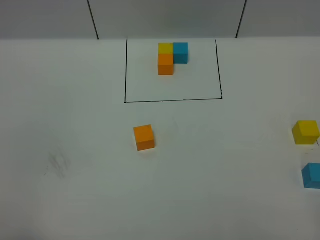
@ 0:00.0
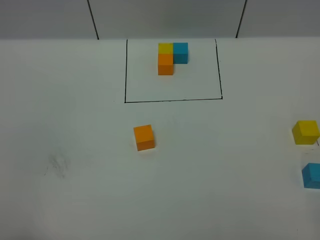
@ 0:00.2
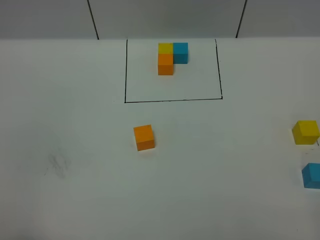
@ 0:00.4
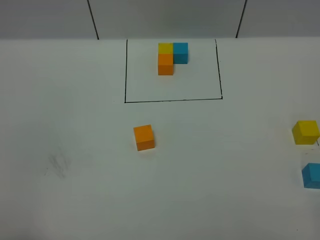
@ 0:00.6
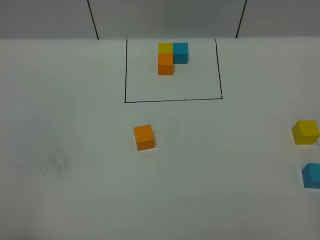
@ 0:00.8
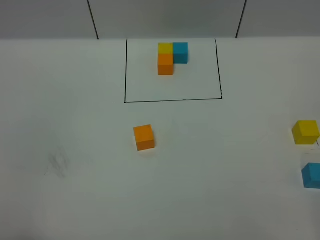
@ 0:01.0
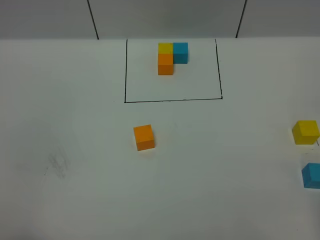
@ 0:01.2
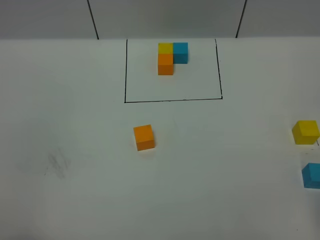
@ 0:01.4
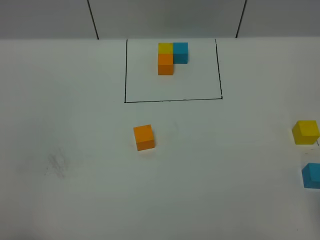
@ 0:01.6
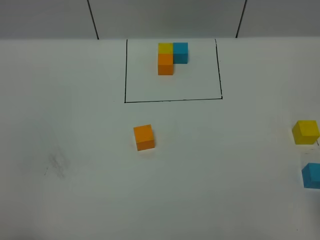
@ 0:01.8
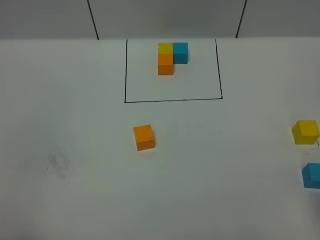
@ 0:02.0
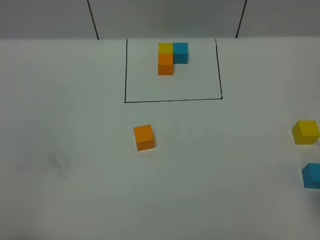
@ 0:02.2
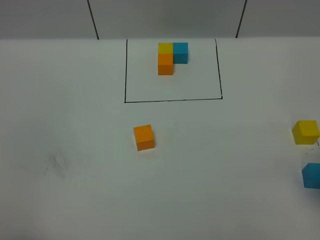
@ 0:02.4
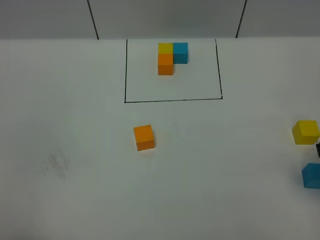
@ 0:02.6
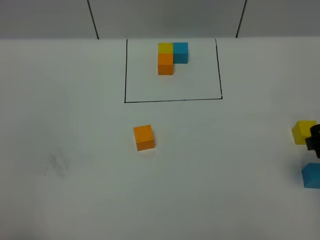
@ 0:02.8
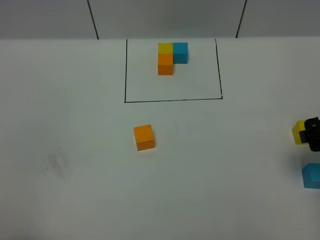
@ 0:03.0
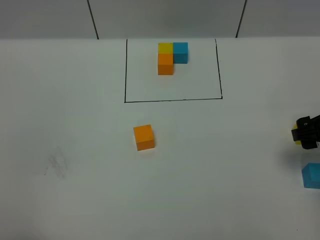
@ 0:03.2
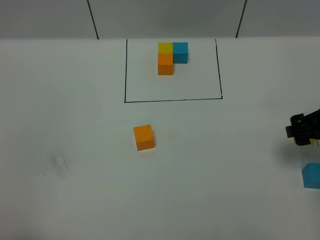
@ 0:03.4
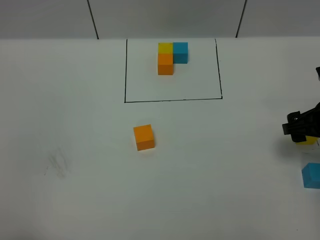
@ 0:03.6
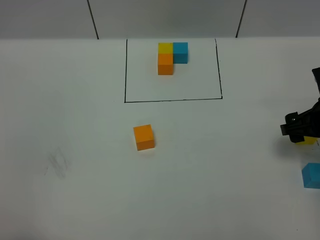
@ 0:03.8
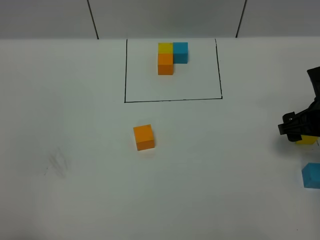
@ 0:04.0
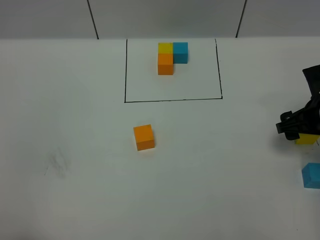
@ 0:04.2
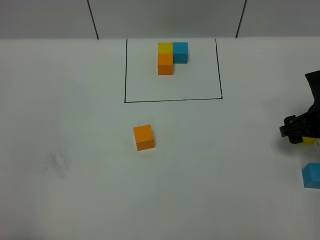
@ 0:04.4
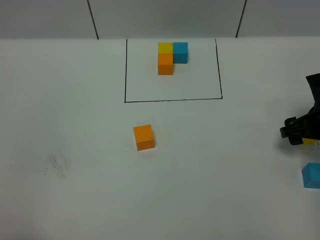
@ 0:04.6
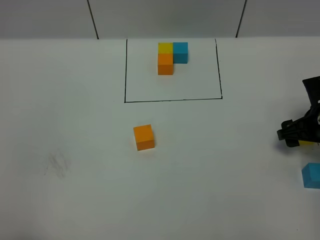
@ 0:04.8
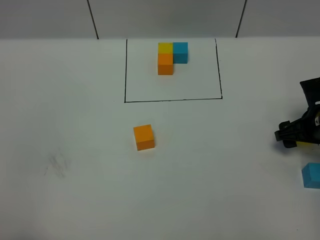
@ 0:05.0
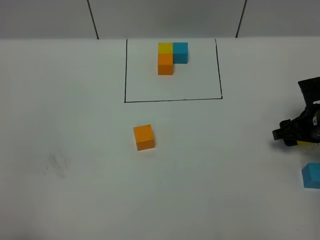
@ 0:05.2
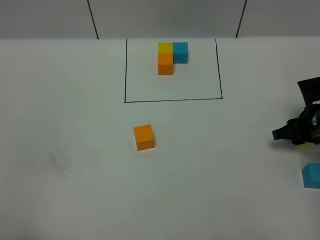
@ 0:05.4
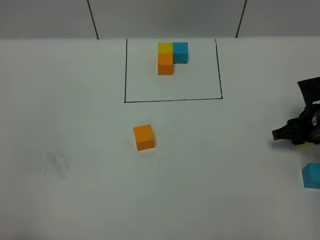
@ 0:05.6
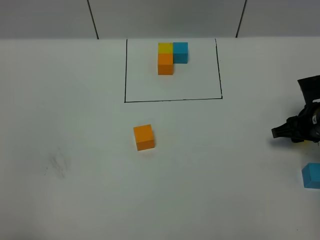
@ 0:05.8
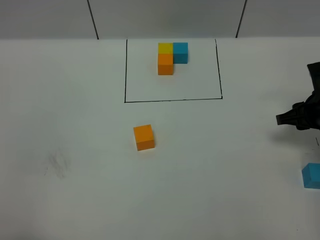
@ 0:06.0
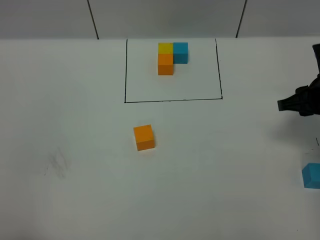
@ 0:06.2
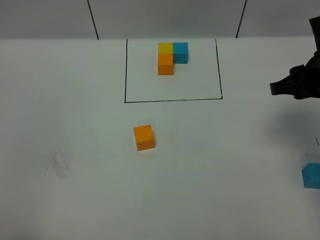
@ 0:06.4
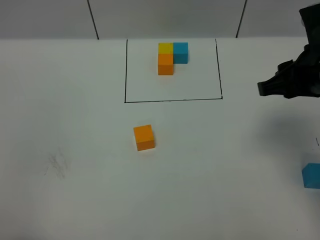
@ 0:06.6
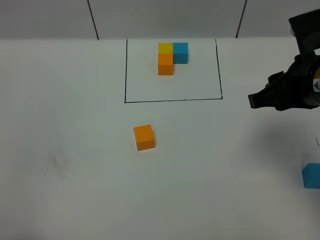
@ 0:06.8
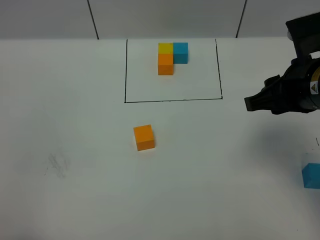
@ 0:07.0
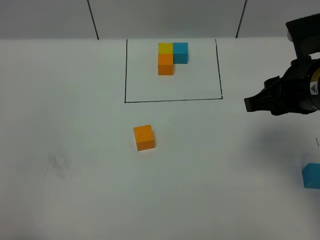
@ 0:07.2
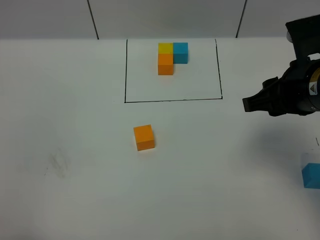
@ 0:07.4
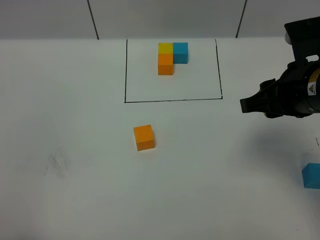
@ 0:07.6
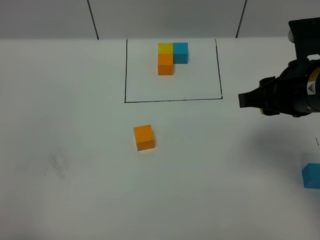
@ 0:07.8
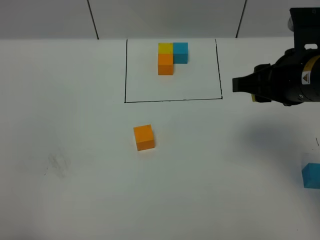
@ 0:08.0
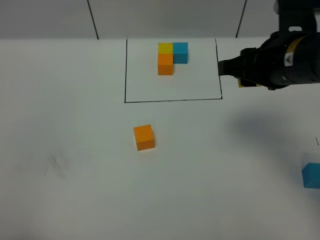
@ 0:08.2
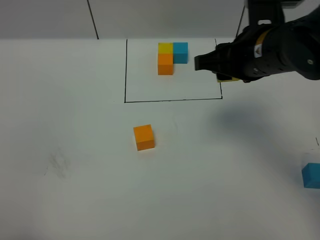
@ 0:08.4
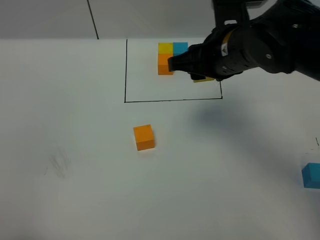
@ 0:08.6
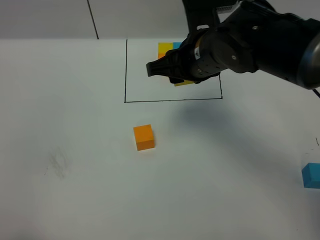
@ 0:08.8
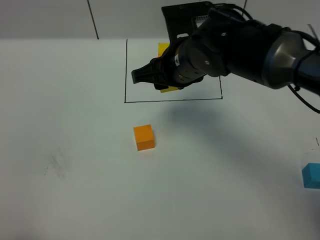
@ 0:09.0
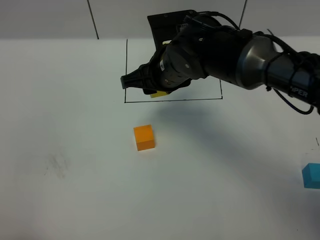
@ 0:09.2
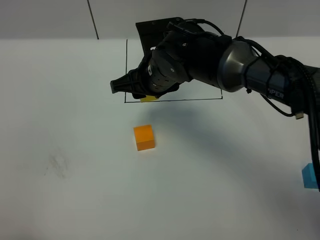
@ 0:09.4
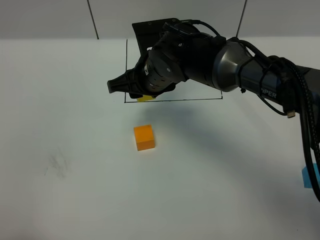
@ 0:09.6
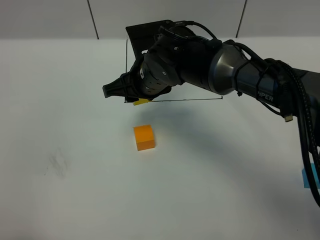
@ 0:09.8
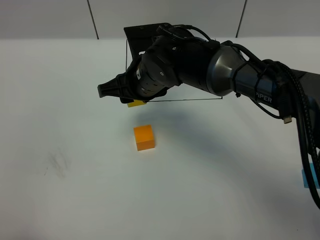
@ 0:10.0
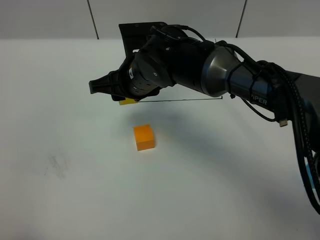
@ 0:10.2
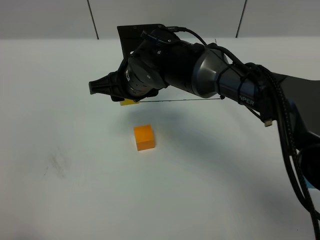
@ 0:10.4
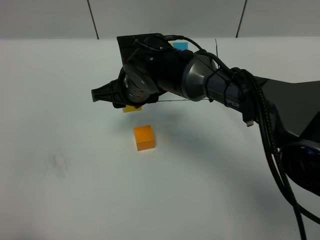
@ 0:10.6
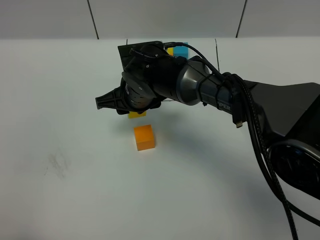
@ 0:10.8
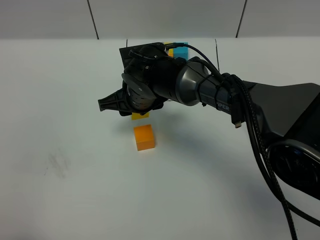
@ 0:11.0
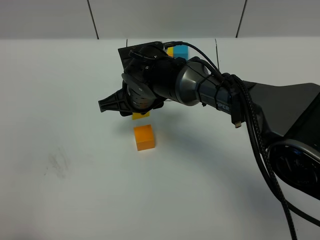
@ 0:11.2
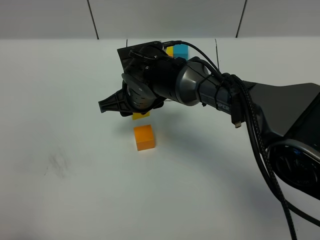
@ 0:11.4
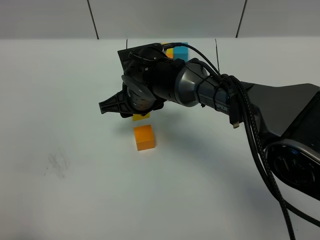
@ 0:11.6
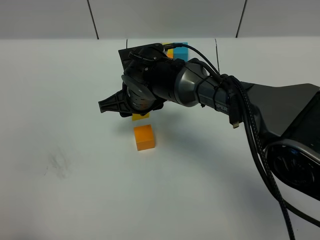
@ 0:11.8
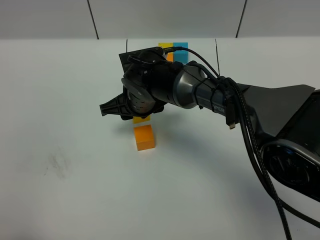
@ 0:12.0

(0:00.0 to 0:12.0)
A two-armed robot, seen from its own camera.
Task of the whole recording: According to the building block template in front, assemble the scattered blocks together.
0:01.6 - 0:03.0: The right gripper shifts approximately 15 cm forward and downward.
0:03.0 - 0:04.4: The right gripper heads downward and forward, covering approximately 10 cm.
0:04.4 - 0:06.0: The right gripper closes.
0:06.0 - 0:07.6: The right gripper shifts roughly 20 cm upward, to the left and backward.
0:07.6 - 0:09.0: The right gripper heads to the left and forward, covering about 20 cm.
0:09.0 - 0:10.4: The right gripper moves to the left, roughly 5 cm.
0:10.4 - 0:12.0: The right gripper travels downward by approximately 5 cm.

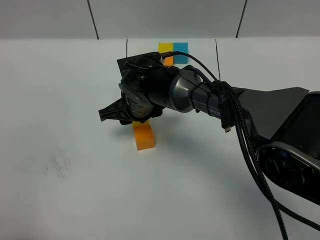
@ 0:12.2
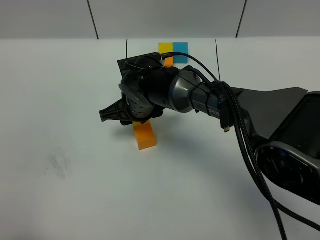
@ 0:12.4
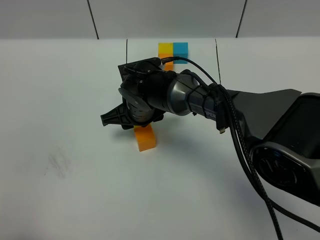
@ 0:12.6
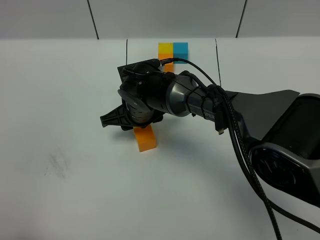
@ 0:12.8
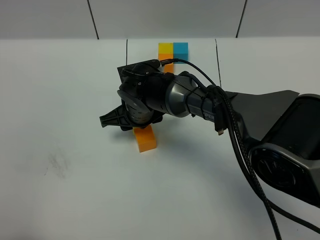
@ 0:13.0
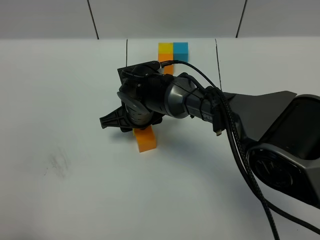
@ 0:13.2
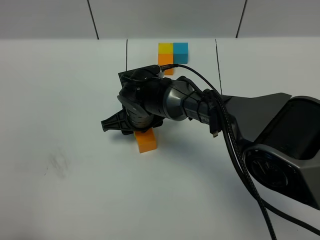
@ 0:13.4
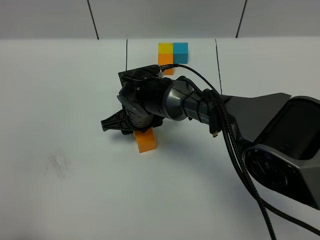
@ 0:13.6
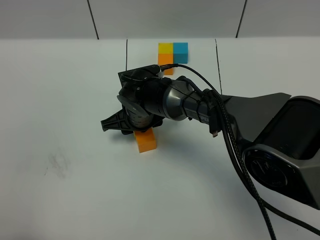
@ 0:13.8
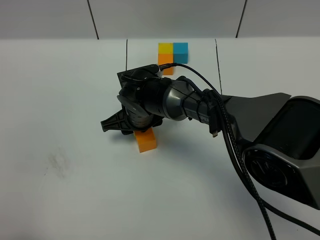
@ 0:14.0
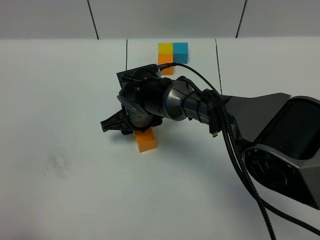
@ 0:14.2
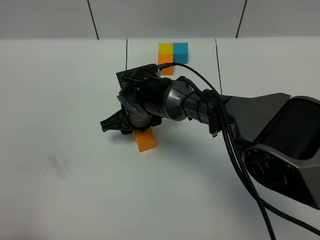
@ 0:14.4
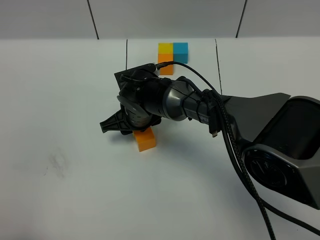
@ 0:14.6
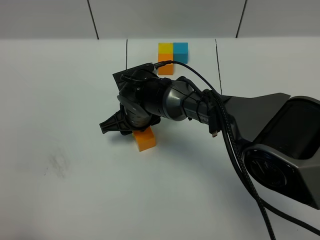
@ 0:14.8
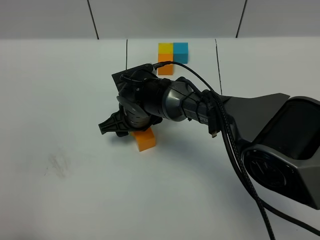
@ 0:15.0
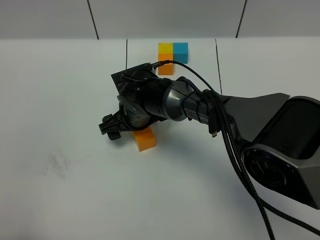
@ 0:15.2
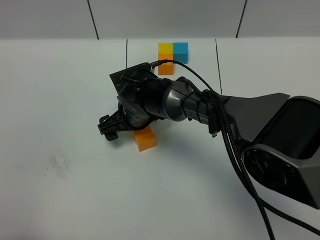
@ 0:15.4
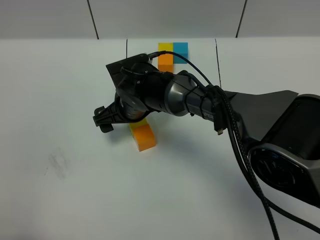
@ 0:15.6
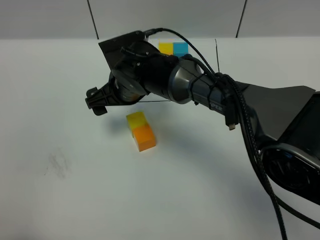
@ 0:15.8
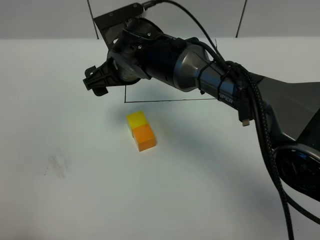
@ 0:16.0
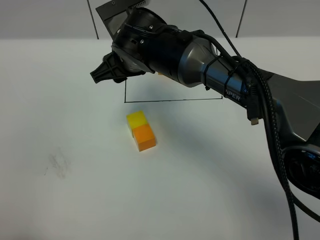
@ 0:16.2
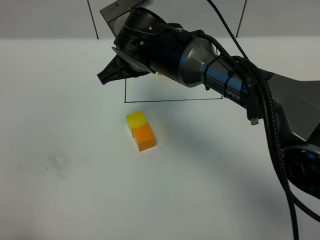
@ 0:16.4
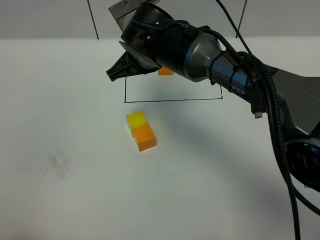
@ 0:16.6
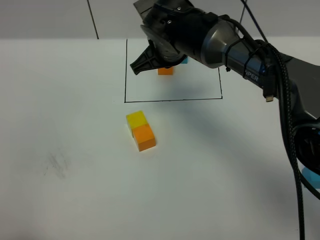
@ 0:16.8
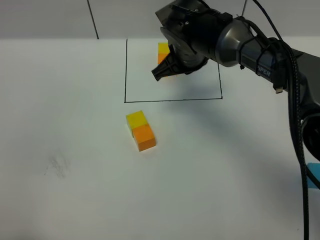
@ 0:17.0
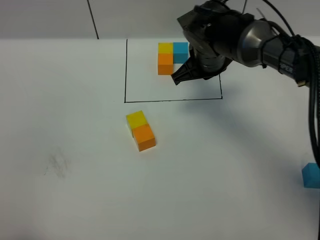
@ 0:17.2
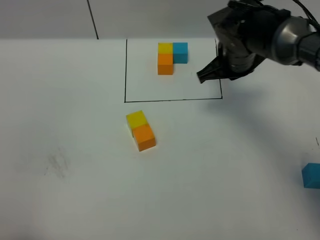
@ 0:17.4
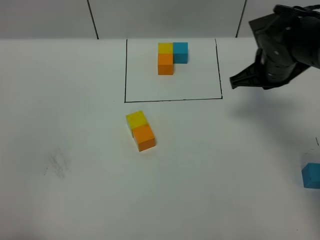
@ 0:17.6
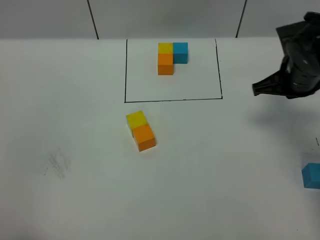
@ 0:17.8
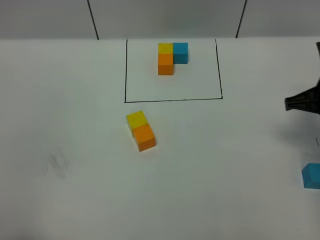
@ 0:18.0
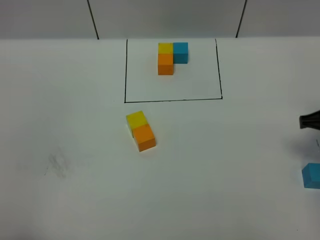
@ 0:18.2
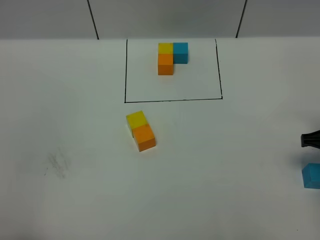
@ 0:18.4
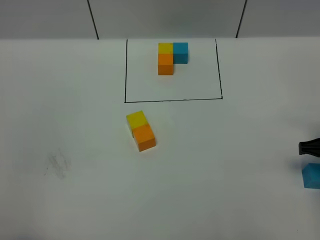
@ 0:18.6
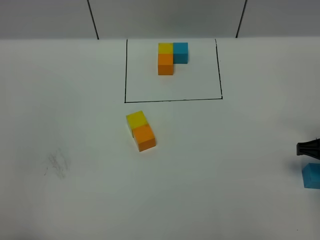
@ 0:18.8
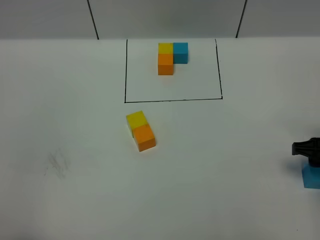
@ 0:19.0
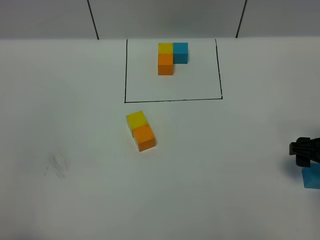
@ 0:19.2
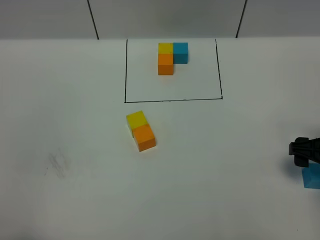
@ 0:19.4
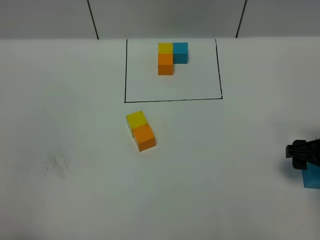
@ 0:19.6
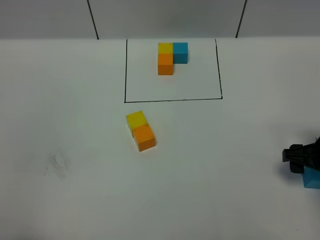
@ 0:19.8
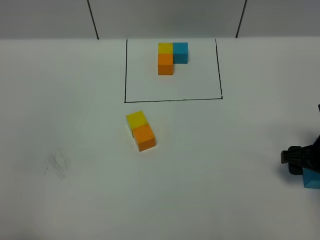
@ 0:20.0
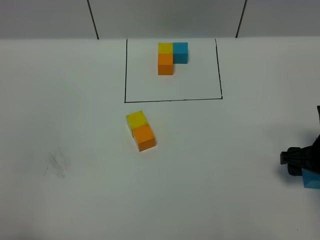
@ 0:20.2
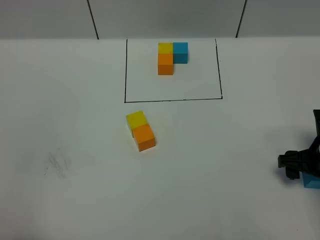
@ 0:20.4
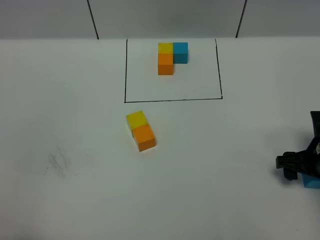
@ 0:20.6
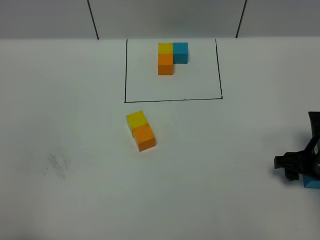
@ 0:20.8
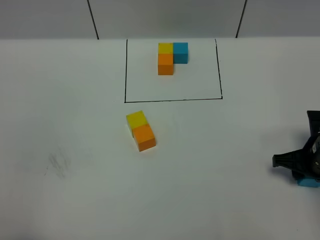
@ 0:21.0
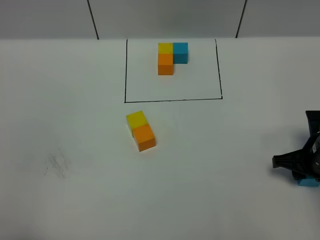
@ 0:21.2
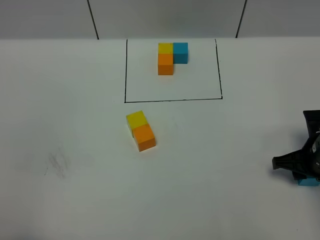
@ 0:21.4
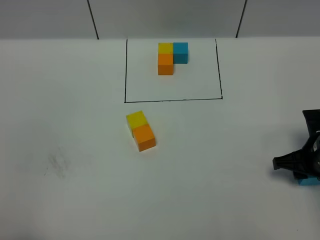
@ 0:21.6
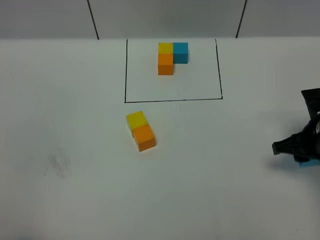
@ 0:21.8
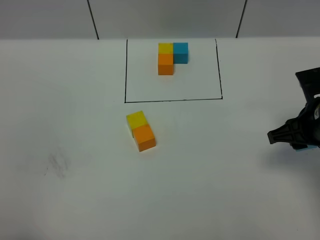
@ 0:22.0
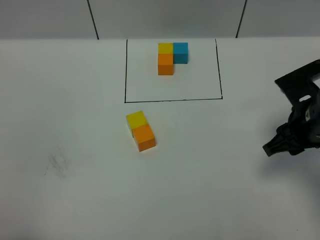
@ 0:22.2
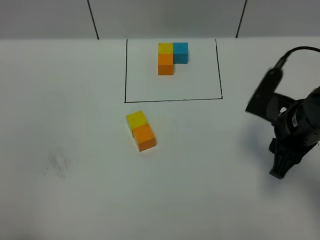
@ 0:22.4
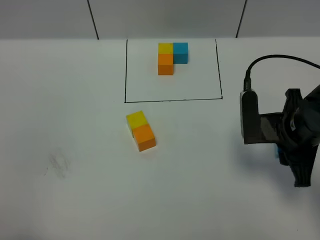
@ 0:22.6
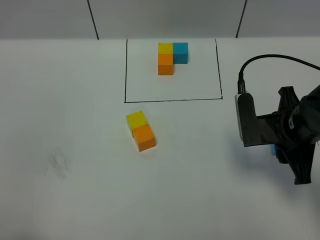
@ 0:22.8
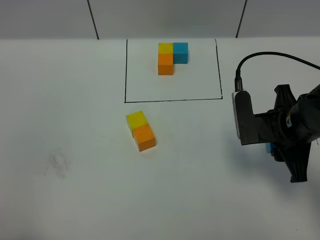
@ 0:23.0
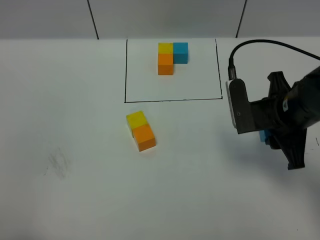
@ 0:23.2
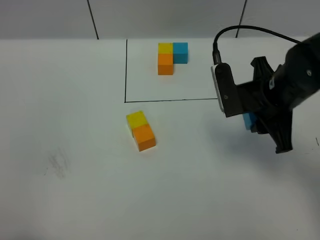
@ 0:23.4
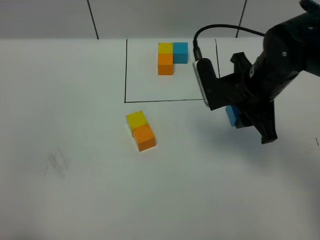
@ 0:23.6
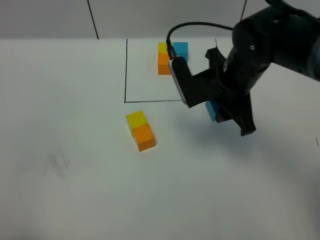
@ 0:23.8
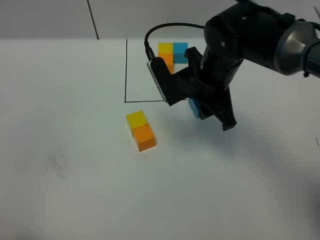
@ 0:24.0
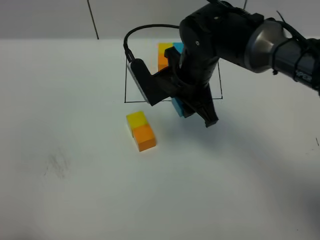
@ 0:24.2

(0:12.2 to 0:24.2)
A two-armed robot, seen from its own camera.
Task of the whole recording: According to the building block template in front, assemble the scattered blocks together.
Step, 0:12.2 - 0:16.0: Put the yellow cube in the front of the orange cube.
0:12.2 - 0:13.8: The grippers make only small movements.
0:13.8 - 0:15.2: The right gripper opens its fingers.
0:15.2 - 0:16.6: The right gripper moves upward, approximately 15 cm, and closes.
0:16.6 - 0:18.2: The right gripper travels to the right by some 30 cm.
0:18.2 - 0:19.8: The right gripper heads downward, covering some 5 cm, and opens its fingers.
0:19.8 - 0:21.2: The right gripper closes its fingers.
0:21.2 - 0:22.6: The right gripper goes approximately 10 cm upward and to the left.
0:22.6 - 0:24.2: The right gripper moves to the left and forward, roughly 20 cm.
